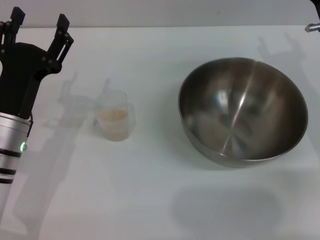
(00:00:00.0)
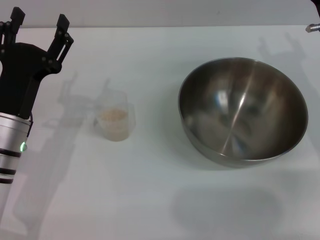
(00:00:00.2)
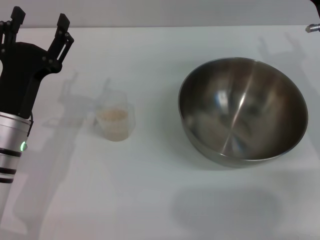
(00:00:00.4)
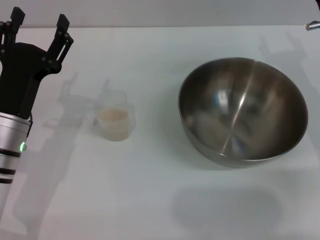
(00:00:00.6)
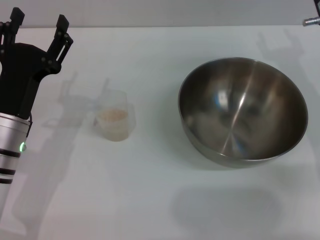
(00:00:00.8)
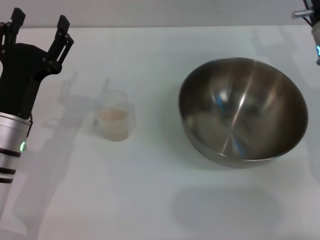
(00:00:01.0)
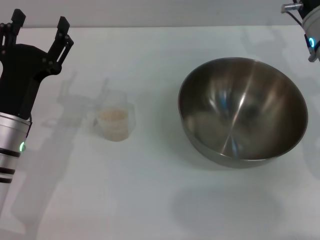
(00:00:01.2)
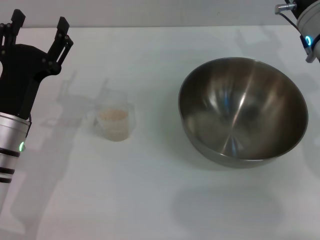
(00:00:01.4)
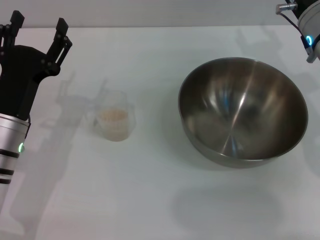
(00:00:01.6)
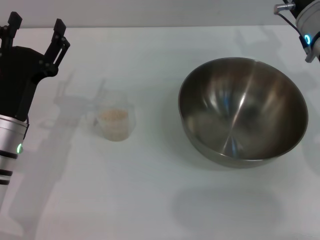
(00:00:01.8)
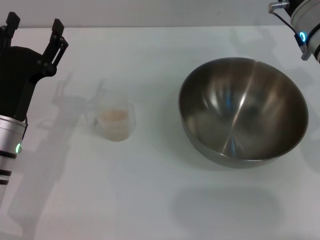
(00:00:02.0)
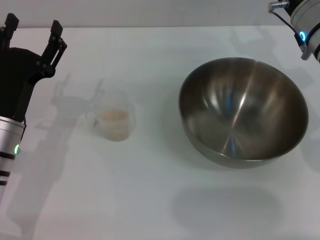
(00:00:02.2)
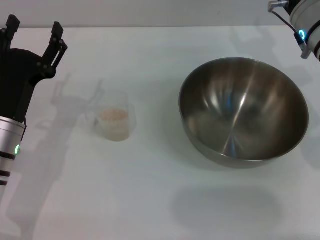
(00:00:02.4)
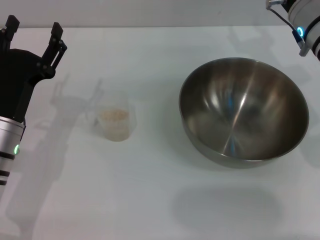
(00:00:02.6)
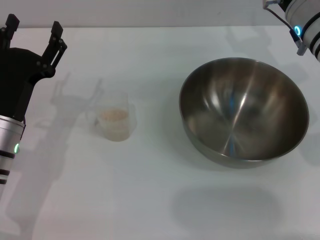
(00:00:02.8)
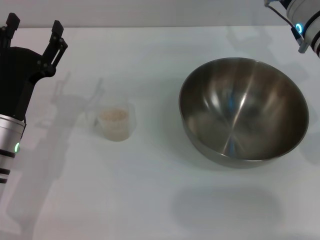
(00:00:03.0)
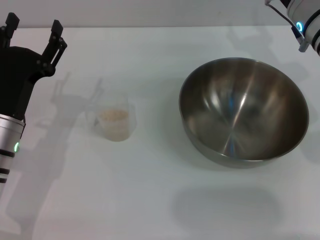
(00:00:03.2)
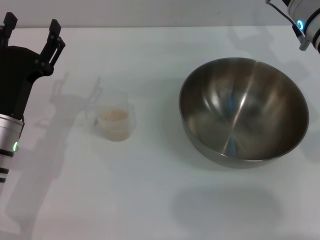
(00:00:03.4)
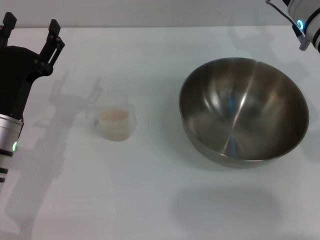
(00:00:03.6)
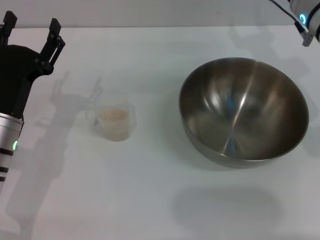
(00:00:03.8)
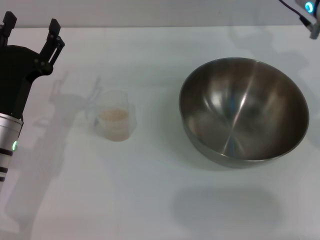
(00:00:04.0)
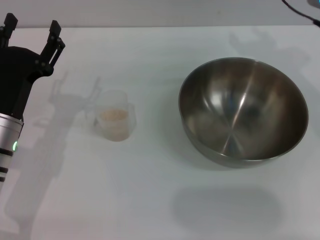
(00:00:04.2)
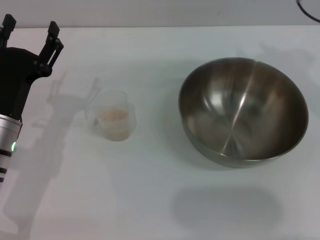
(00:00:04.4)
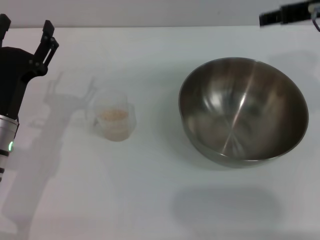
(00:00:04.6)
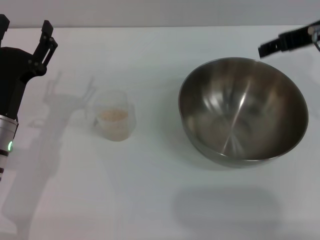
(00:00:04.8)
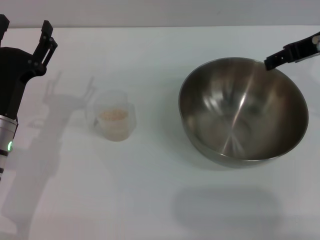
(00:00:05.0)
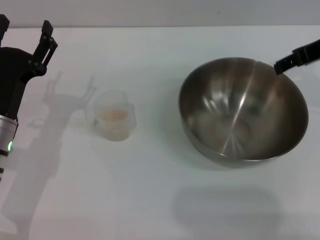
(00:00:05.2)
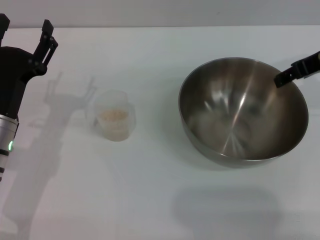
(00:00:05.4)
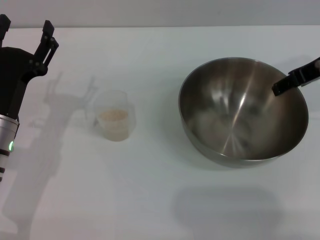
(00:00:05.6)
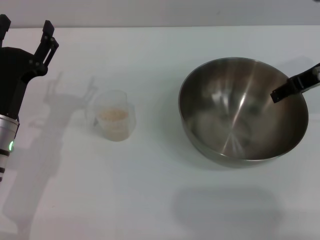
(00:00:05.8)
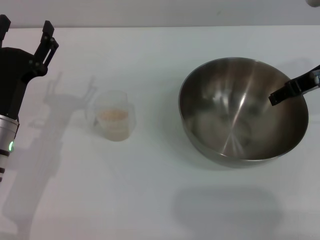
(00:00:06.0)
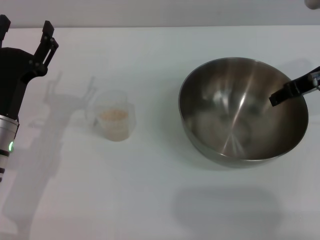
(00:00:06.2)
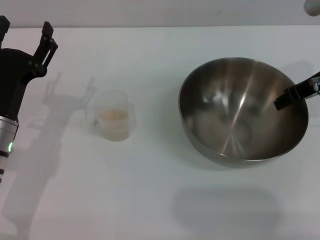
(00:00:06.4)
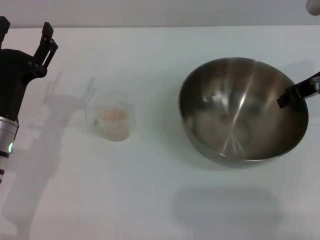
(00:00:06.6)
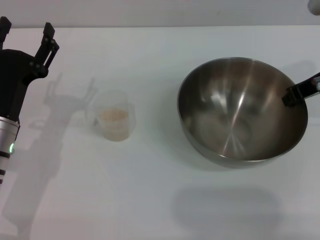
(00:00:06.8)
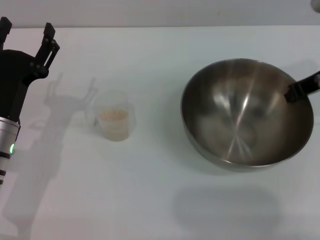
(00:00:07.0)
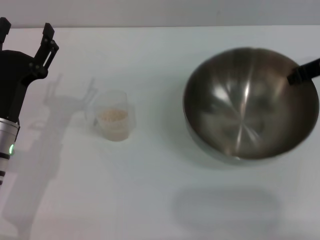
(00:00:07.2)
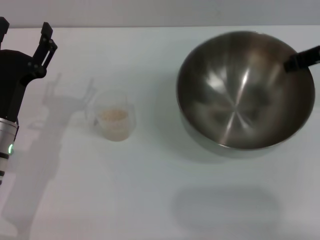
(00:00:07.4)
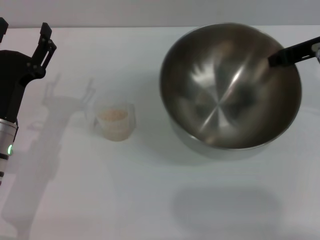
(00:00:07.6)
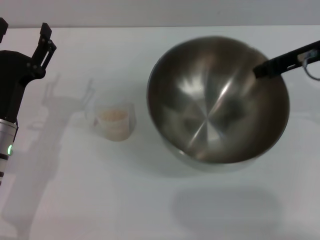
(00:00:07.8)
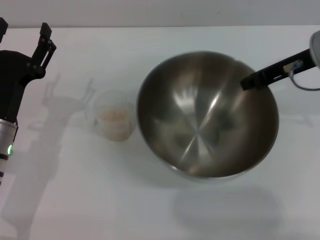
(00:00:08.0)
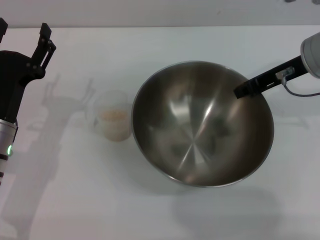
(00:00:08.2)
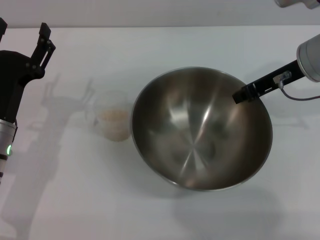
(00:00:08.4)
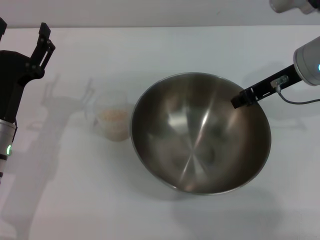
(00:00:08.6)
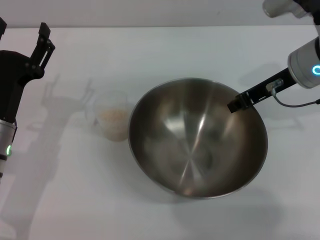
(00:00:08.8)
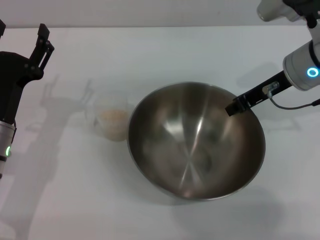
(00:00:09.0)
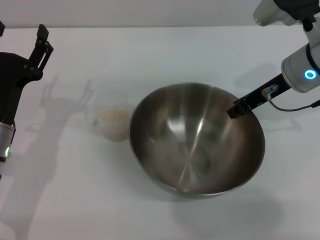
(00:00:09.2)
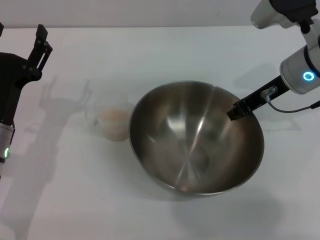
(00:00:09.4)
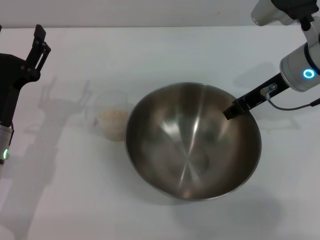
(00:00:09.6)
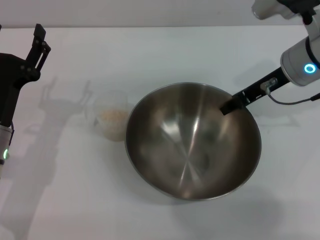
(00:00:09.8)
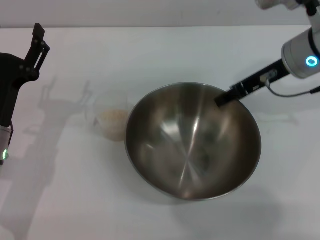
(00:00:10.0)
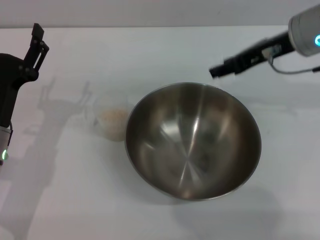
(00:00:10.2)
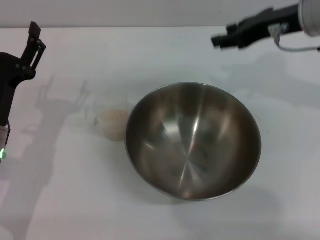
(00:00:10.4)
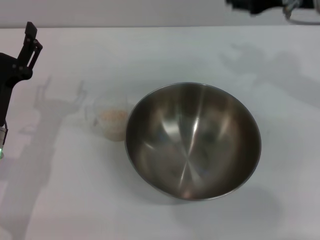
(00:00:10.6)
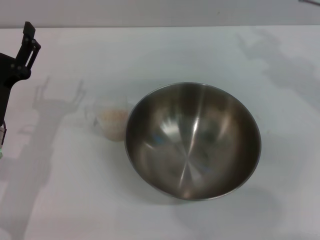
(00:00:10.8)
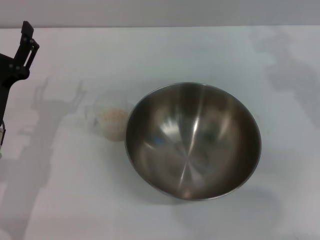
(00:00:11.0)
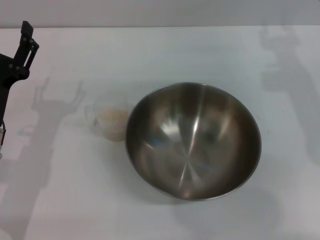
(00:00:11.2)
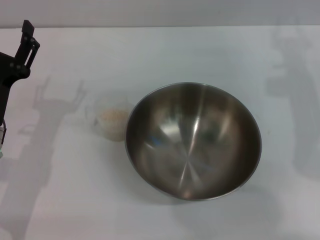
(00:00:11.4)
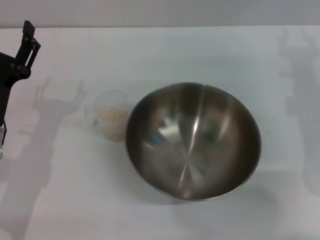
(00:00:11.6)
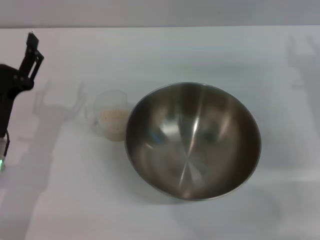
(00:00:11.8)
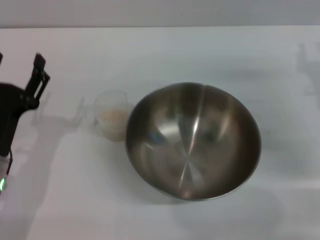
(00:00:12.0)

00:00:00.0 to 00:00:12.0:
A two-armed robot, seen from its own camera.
Task of the whole recording: Place the bowl in the middle of the table with one hand and pour the rice from the grain cup into it with the other hand.
Step, 00:00:00.0 to 00:00:07.2: Pick up the bowl with the right gripper.
Step, 00:00:07.6 to 00:00:10.2: Place the bowl in the center of view with the right gripper.
00:00:00.0 to 00:00:01.6: The right gripper changes place by some 5 cm.
00:00:01.6 to 00:00:03.0: The grippers stay close to where they were, moving slightly.
00:00:03.0 to 00:00:04.4: The right gripper shifts roughly 10 cm upward.
00:00:04.4 to 00:00:06.0: The right gripper moves downward, approximately 5 cm.
00:00:06.0 to 00:00:07.6: The right gripper closes its fingers.
00:00:07.6 to 00:00:09.0: The right gripper shifts about 5 cm downward and to the left.
00:00:09.0 to 00:00:10.4: The right gripper is displaced upward by about 5 cm, and opens.
00:00:10.4 to 00:00:12.0: The right gripper moves downward and to the right, approximately 15 cm.

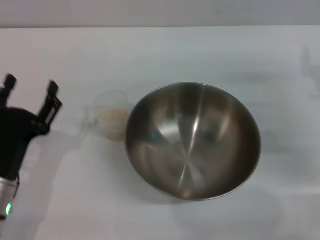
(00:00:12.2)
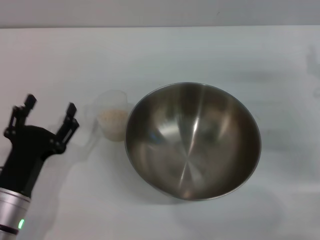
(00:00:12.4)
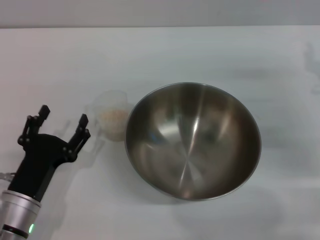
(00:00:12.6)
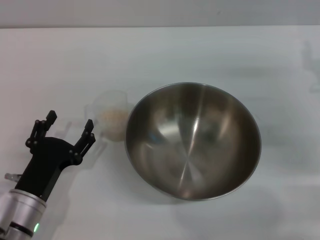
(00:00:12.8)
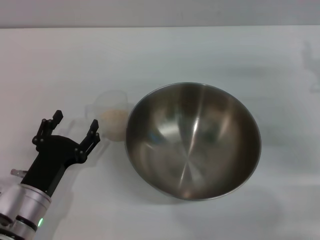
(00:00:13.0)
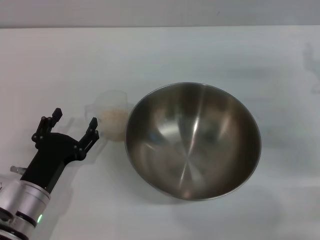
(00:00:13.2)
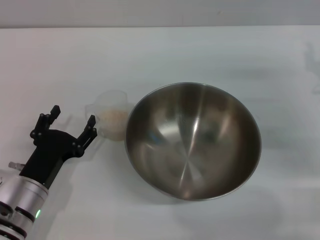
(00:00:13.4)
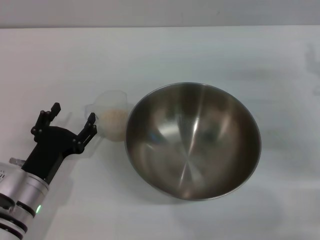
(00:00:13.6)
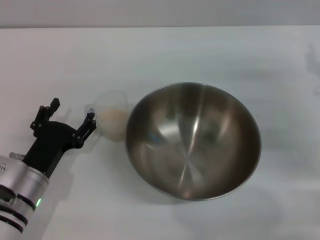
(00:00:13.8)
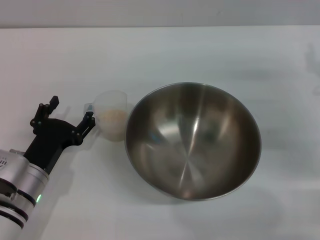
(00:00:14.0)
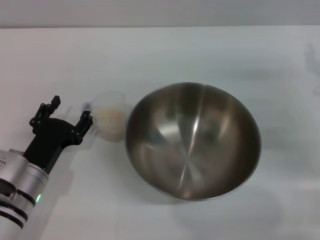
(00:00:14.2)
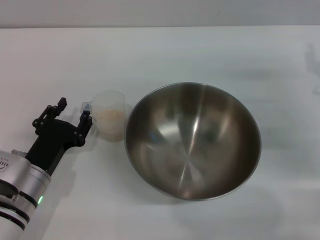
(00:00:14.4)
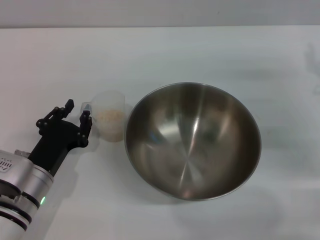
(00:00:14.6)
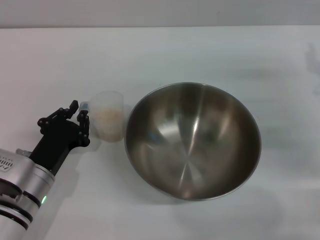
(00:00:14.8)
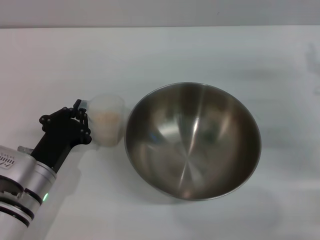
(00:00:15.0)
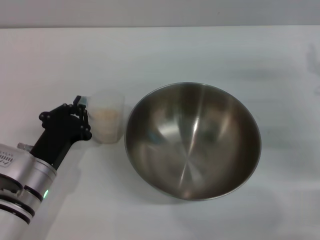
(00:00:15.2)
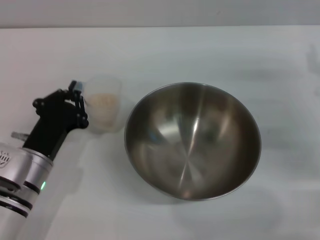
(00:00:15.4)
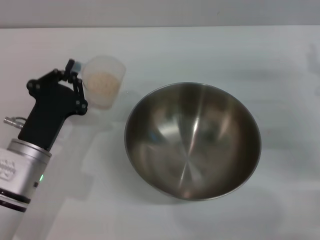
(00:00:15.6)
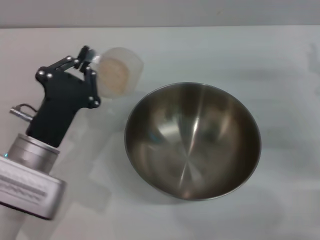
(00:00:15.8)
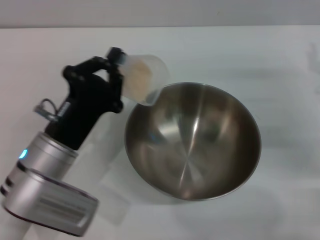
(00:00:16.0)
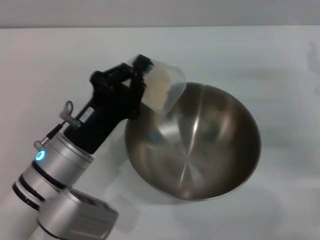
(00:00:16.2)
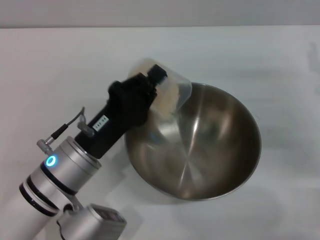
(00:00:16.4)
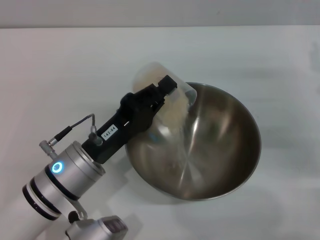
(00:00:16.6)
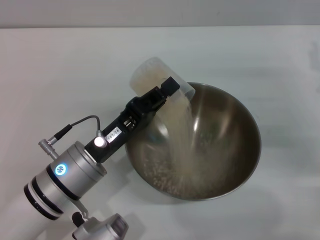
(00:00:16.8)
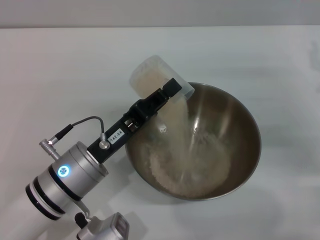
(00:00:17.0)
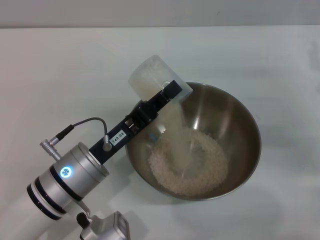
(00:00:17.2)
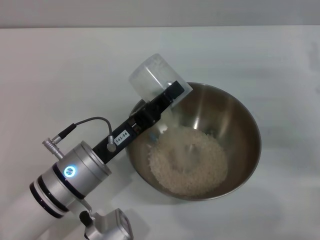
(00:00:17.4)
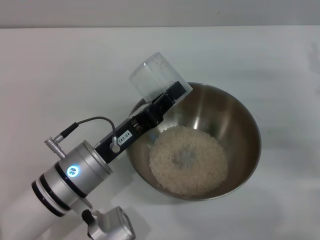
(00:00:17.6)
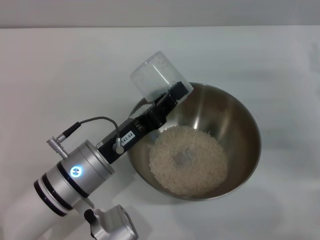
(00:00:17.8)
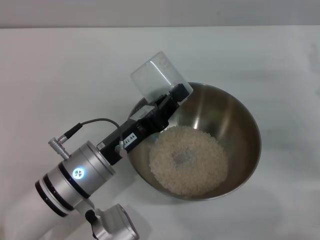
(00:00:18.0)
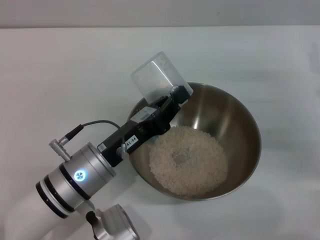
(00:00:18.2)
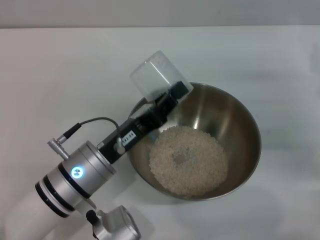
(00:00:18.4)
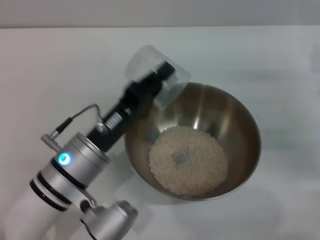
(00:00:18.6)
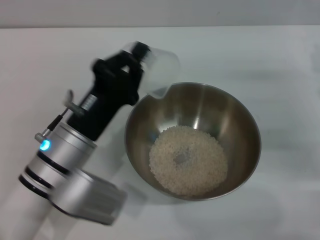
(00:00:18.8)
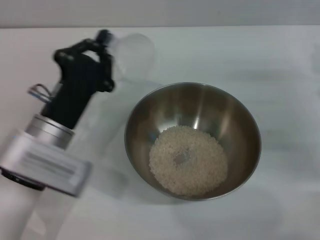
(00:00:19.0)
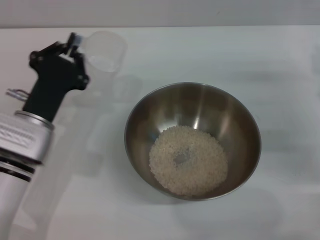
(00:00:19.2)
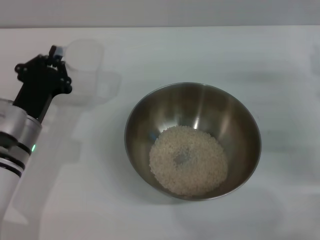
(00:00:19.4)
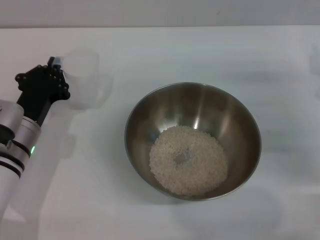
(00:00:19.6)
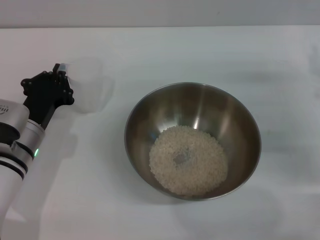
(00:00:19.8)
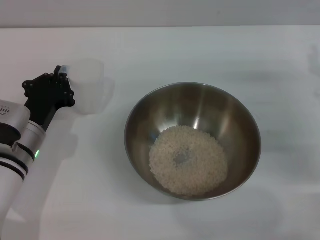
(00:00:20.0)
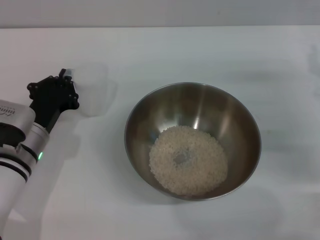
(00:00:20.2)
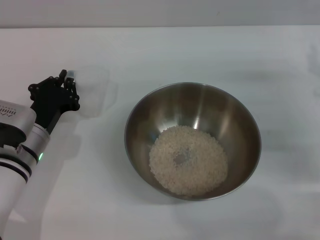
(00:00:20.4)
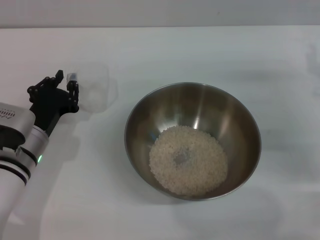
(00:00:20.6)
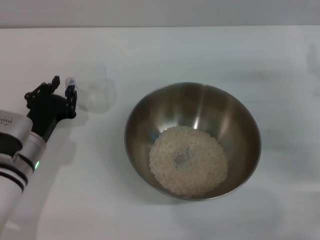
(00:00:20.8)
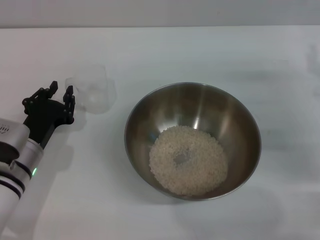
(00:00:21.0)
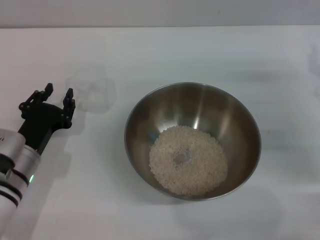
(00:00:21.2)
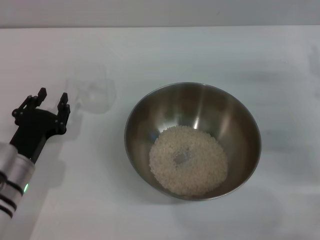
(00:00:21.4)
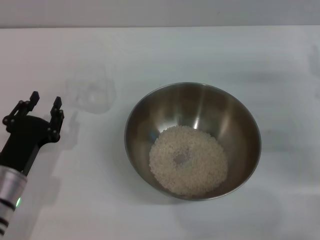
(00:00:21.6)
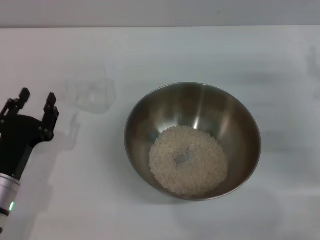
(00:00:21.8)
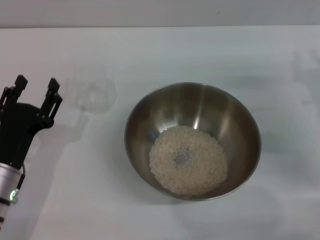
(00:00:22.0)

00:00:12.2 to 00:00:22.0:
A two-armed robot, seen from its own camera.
Task of the whole recording: Place the bowl in the middle of the table with one hand and pour the rice from the grain cup into it with the other hand.
Step, 00:00:12.2 to 00:00:15.8: Pick up the cup with rice in it with the left gripper.
Step, 00:00:16.0 to 00:00:18.2: Pour the rice from the cup into the bowl with the left gripper.
Step, 00:00:18.4 to 00:00:21.2: Place the cup on the table with the left gripper.
00:00:12.2 to 00:00:13.6: The grippers make only small movements.
00:00:13.6 to 00:00:15.0: The left gripper closes up.
00:00:15.0 to 00:00:16.4: The left gripper goes approximately 10 cm to the right and upward.
00:00:17.8 to 00:00:19.2: The left gripper goes some 5 cm to the left.
00:00:20.6 to 00:00:22.0: The left gripper moves backward, some 5 cm, and opens its fingers.
